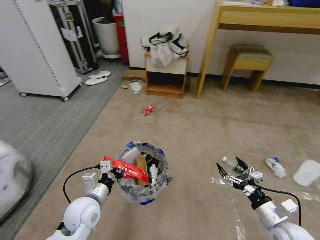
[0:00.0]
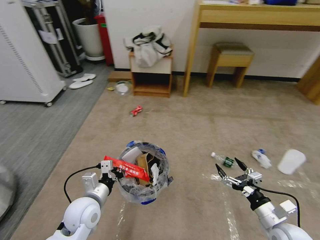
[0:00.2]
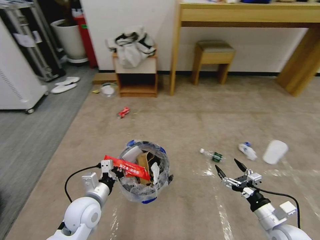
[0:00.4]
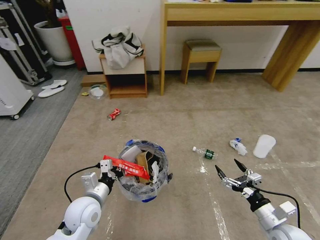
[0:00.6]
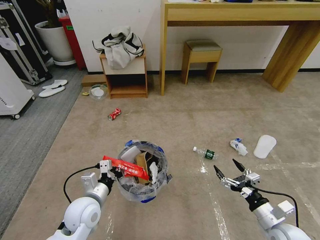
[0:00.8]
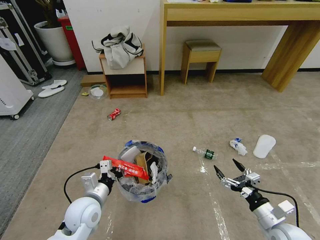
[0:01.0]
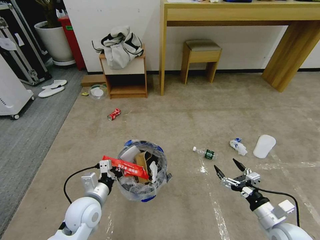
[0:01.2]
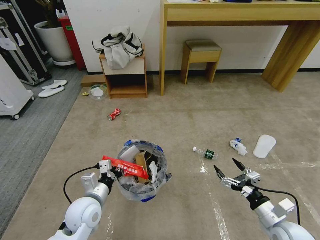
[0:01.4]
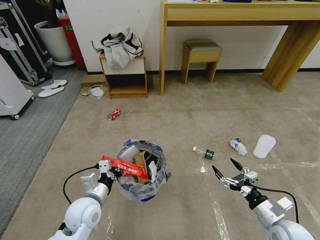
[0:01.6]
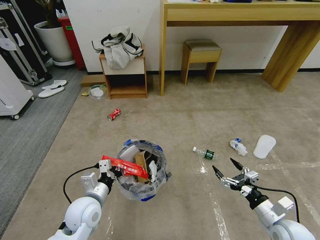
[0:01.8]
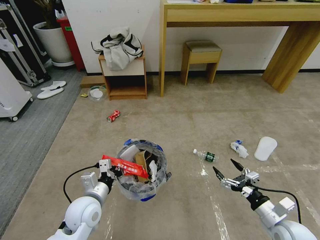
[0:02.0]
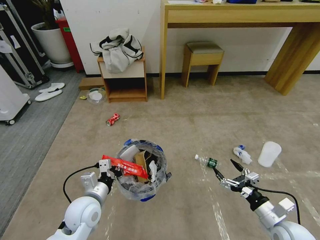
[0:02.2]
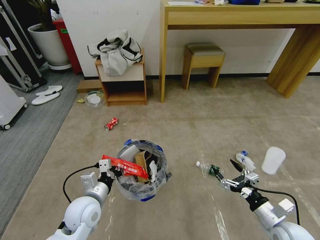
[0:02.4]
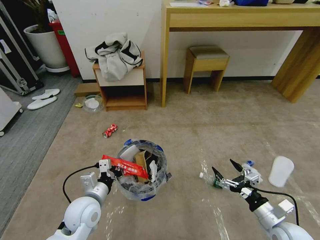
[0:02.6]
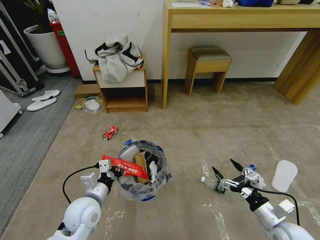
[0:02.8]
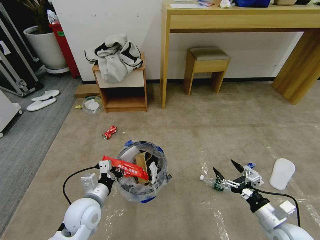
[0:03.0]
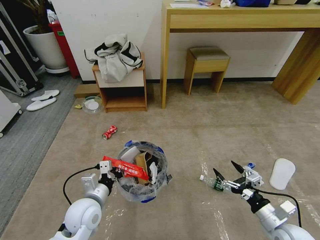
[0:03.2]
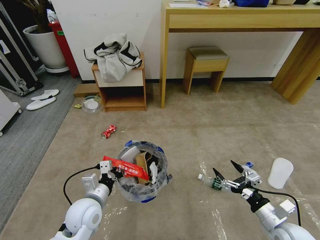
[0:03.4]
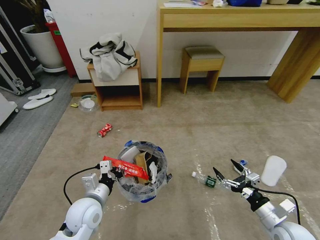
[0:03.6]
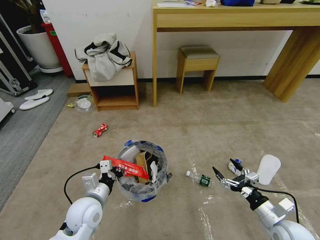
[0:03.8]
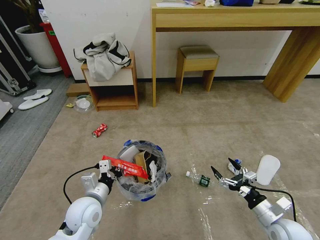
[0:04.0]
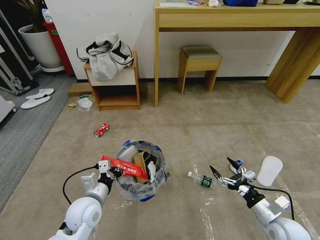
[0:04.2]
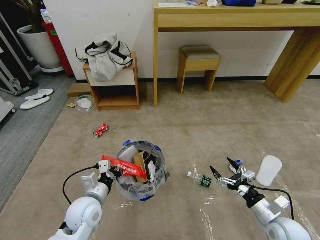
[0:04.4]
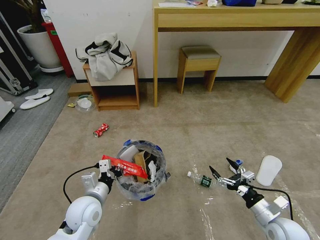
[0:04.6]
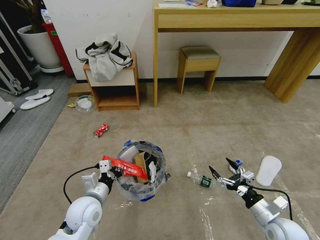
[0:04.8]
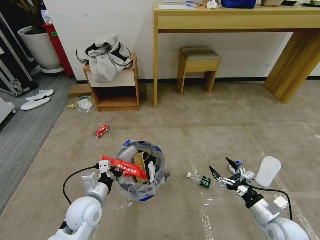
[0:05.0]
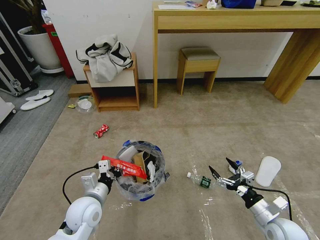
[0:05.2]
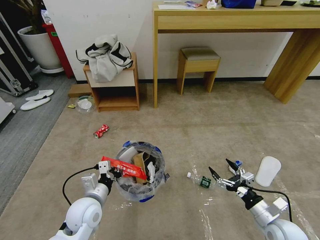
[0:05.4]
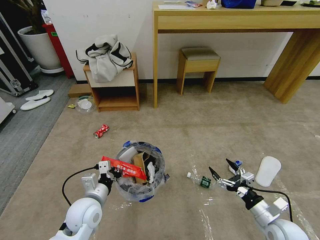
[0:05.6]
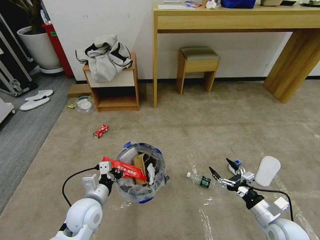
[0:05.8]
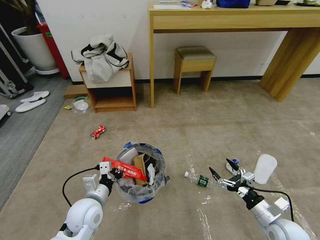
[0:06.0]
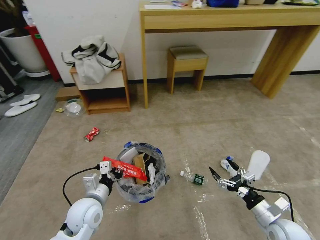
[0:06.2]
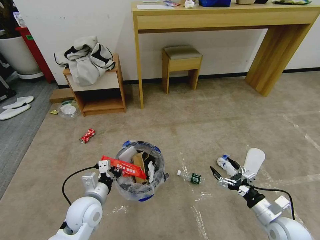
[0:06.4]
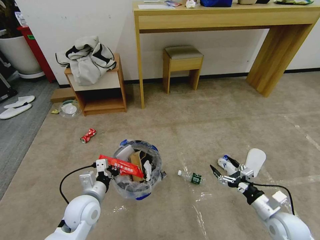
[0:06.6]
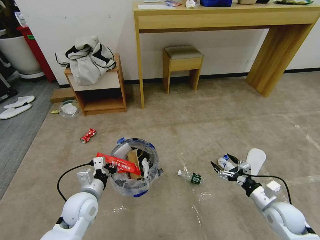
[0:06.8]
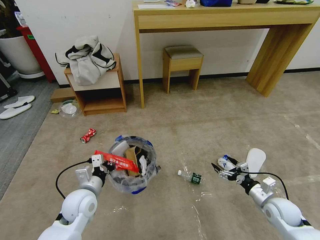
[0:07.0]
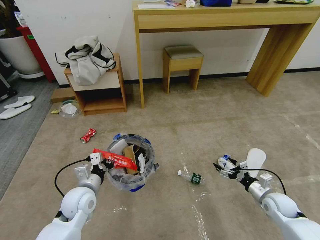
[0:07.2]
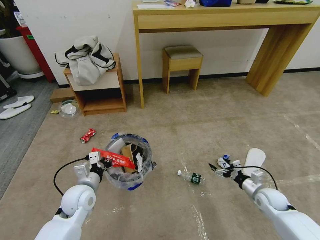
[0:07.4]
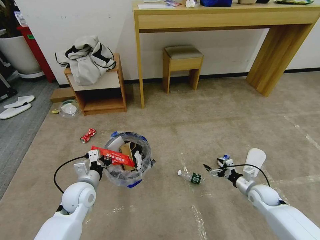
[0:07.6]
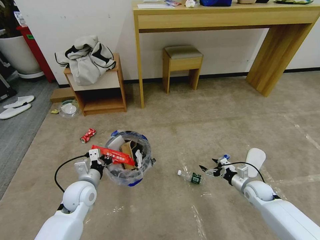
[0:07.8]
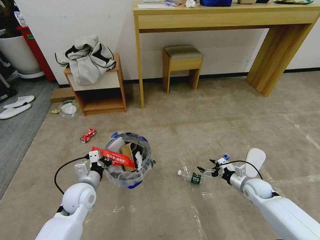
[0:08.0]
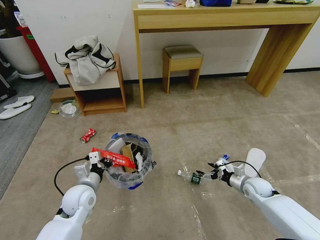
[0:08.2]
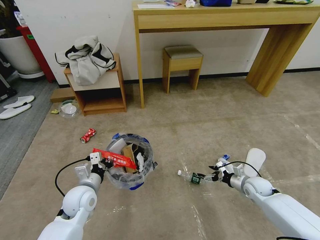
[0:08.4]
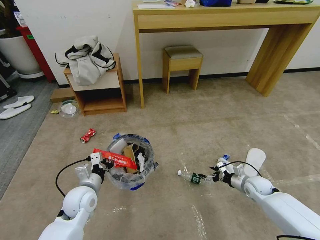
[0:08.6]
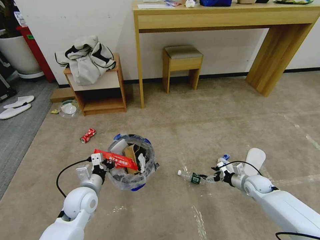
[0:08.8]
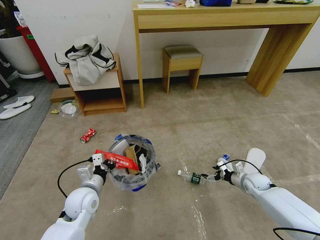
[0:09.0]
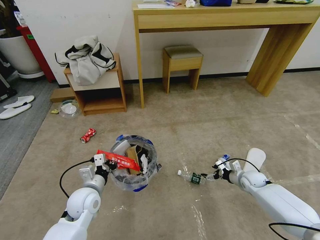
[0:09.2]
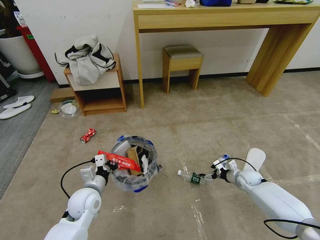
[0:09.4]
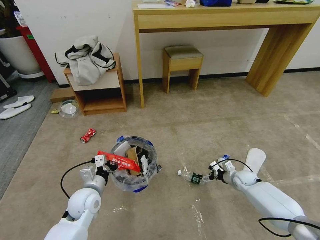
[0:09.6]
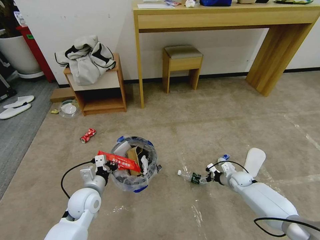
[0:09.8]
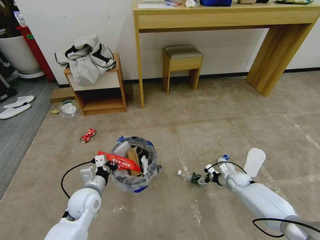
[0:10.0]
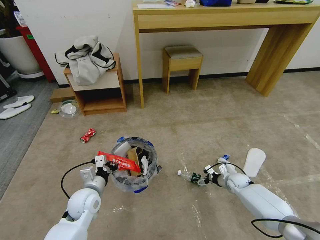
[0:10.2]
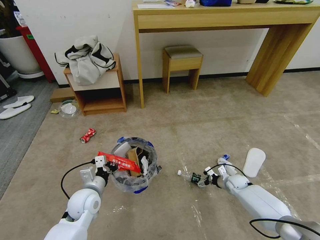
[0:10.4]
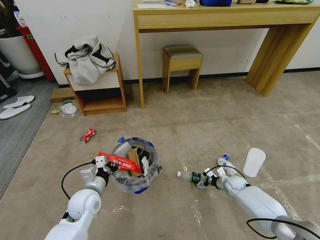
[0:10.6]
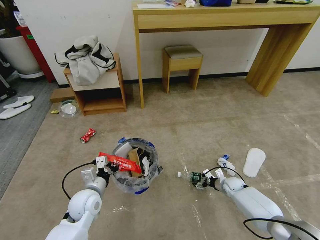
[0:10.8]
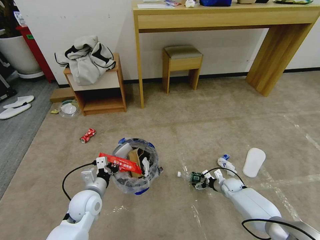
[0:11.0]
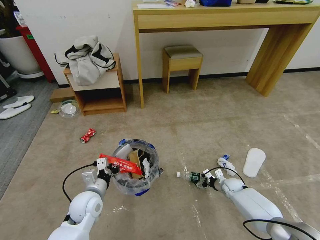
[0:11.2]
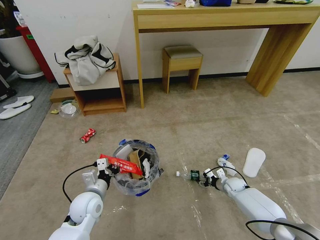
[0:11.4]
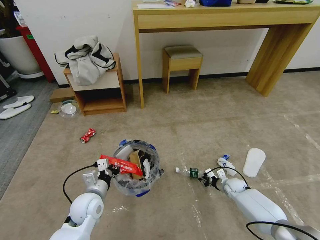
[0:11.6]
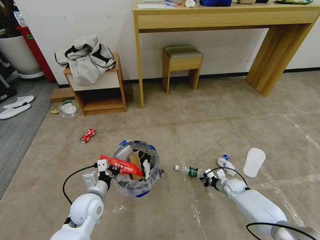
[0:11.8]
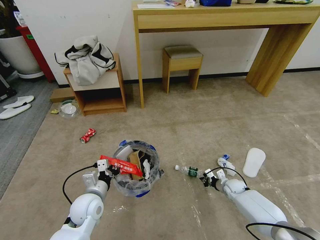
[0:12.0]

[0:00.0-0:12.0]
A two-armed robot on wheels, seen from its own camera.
Task of the whole recording: Pick up the trash bin and place the garbage on the floor into it.
0:04.4 to 0:06.0: Both grippers stay about where they are.
0:06.0 to 0:07.6: The left gripper travels forward by about 5 cm. The right gripper moves forward and downward, about 15 cm.
0:07.6 to 0:09.0: The right gripper moves forward, roughly 5 cm.
0:09.0 to 0:10.4: The right gripper goes roughly 5 cm downward.
0:10.4 to 0:12.0: The right gripper closes.

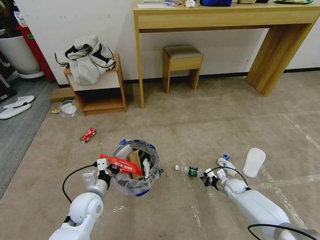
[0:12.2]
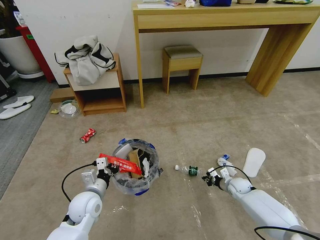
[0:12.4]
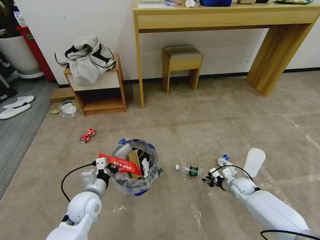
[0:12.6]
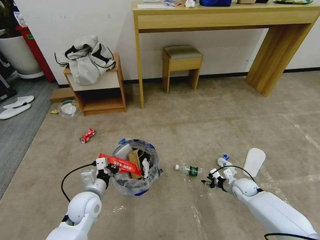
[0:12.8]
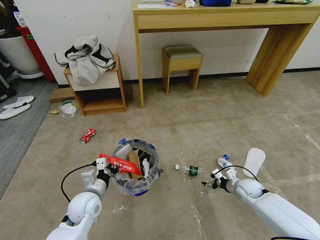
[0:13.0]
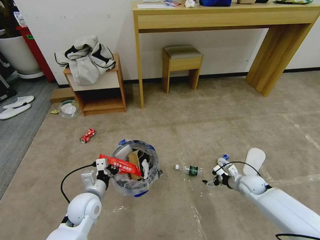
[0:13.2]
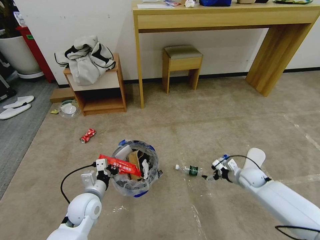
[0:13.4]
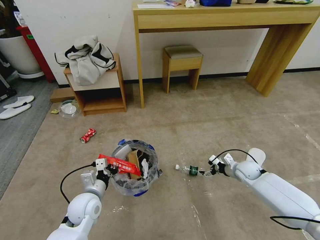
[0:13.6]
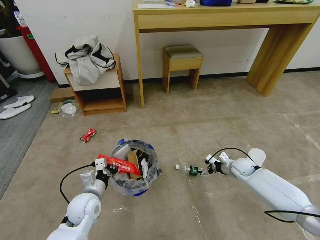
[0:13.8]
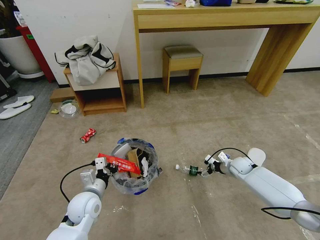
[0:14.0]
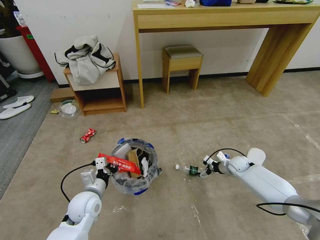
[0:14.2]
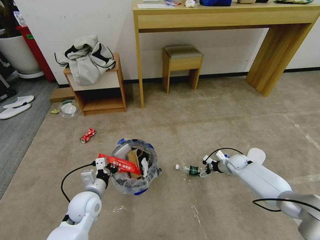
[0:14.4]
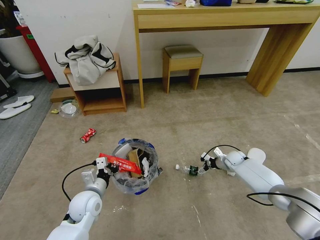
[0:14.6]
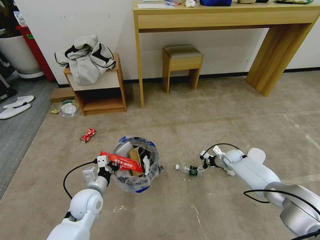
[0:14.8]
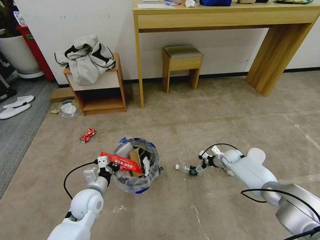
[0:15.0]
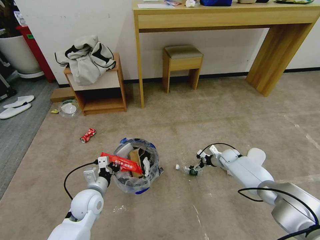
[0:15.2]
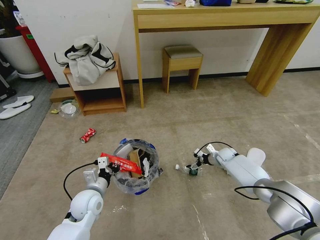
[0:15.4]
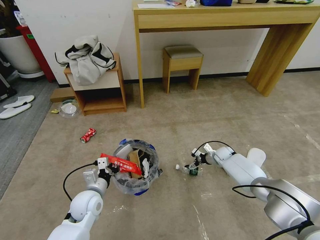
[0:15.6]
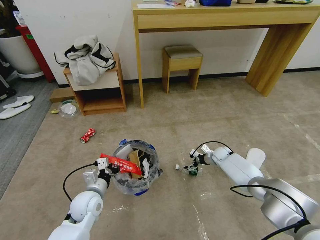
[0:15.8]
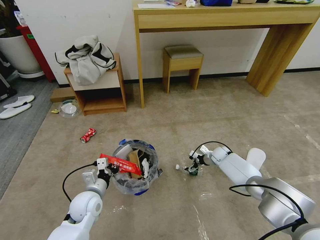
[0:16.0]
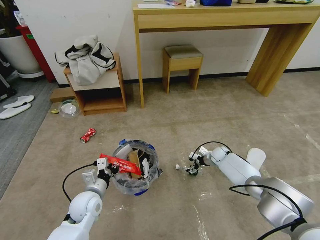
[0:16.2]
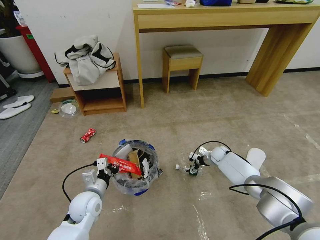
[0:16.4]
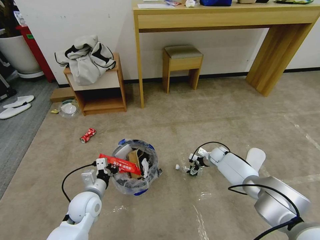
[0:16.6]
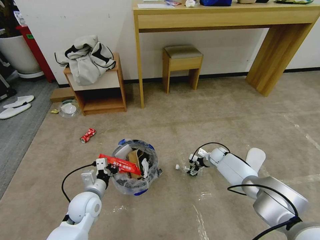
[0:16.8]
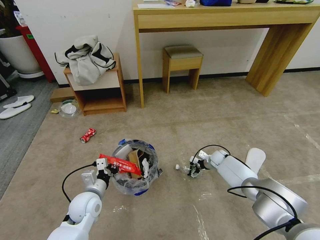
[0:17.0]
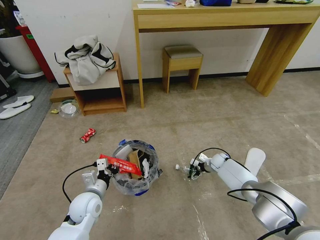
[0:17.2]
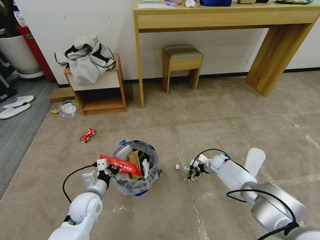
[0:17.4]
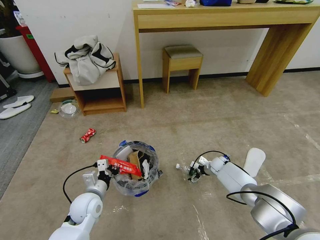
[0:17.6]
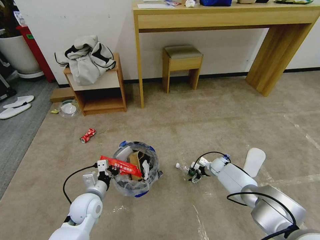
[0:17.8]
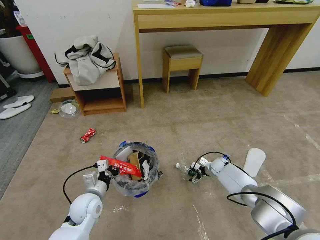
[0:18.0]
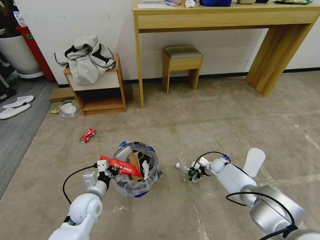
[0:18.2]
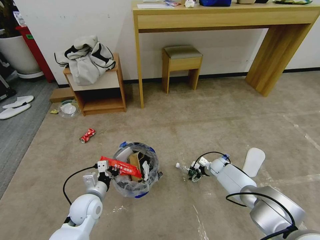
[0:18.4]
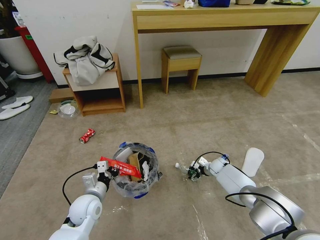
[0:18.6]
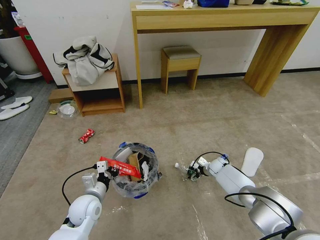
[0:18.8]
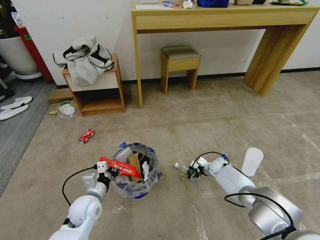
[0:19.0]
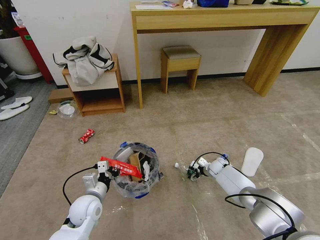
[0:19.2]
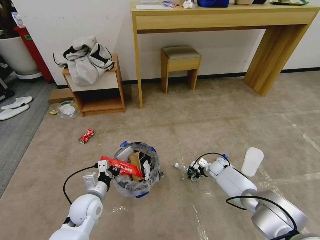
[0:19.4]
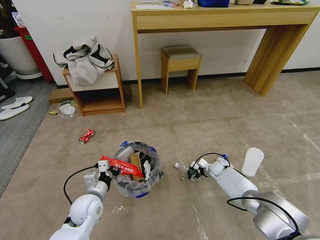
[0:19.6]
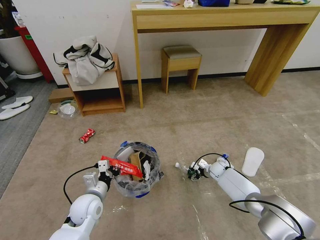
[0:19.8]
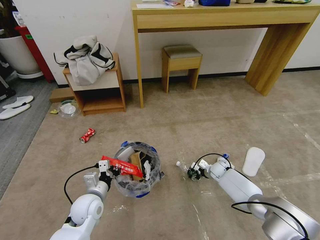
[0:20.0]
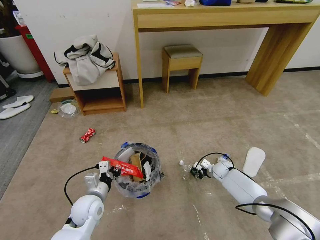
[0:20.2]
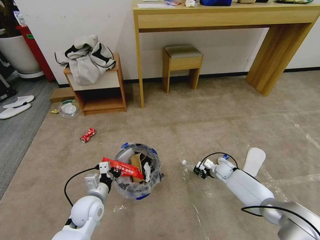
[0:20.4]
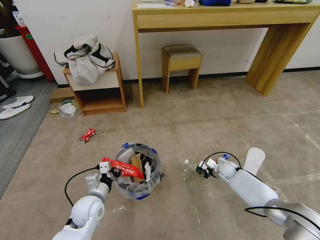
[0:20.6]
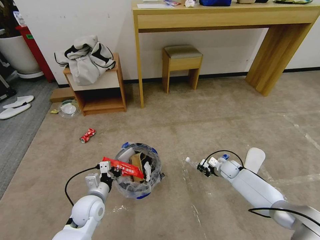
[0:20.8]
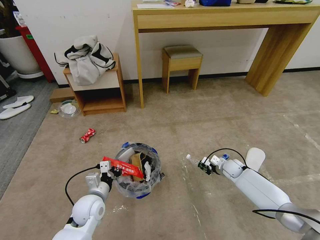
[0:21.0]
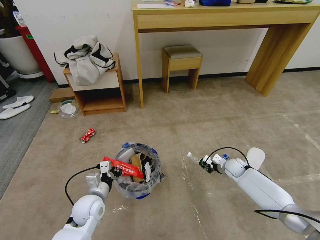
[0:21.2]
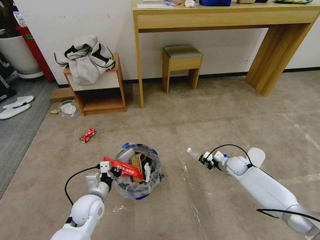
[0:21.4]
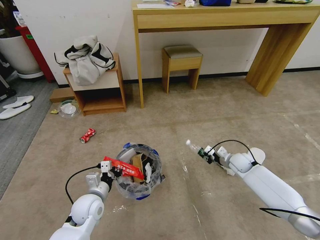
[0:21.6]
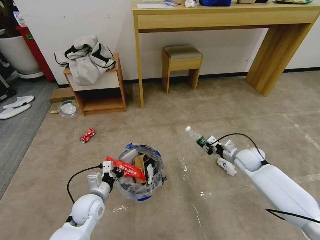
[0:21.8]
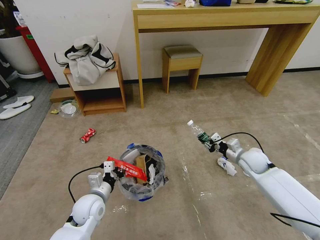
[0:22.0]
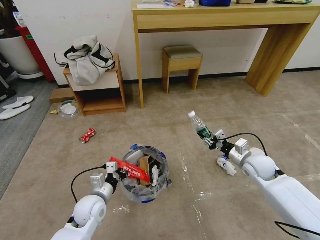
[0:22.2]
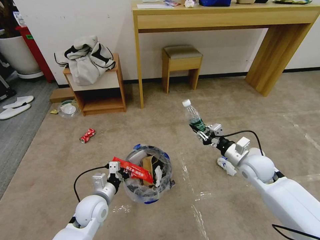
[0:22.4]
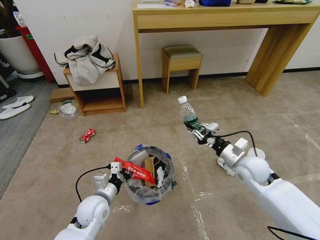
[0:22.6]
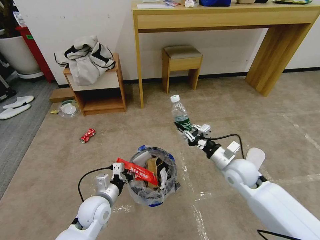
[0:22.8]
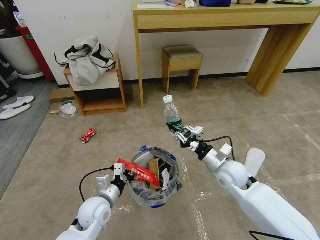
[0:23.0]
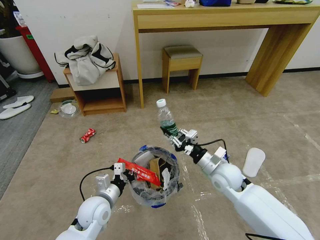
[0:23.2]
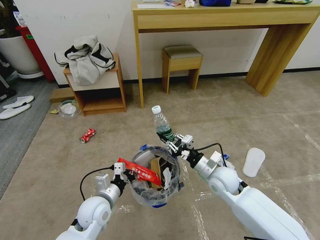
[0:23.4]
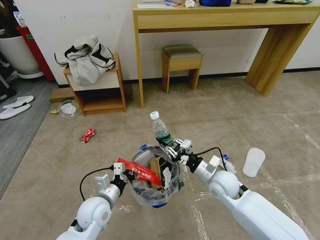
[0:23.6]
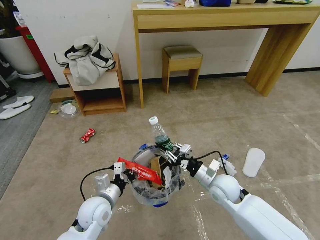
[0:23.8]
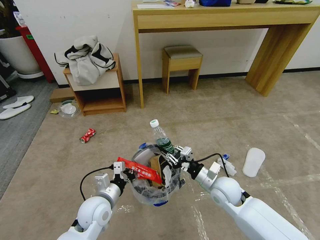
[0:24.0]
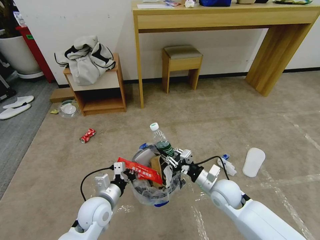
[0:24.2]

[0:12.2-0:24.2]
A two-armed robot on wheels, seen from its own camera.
Task of the whole recording: Pick up the trash bin and place the garbage on the floor into it.
0:12.2 to 0:13.8: The right gripper goes roughly 10 cm upward, and opens up.
0:13.8 to 0:15.2: The right gripper heads forward, covering roughly 10 cm.
0:15.2 to 0:16.6: The grippers stay close to where they were, moving slightly.
0:16.6 to 0:18.2: The right gripper moves roughly 5 cm.
0:18.2 to 0:19.8: The grippers stay close to where they were, moving slightly.
0:19.8 to 0:21.2: The right gripper moves upward, about 5 cm, and closes.
0:21.2 to 0:22.6: The right gripper goes about 20 cm upward and backward.
0:22.6 to 0:24.2: The right gripper is displaced downward and to the left by about 10 cm.
